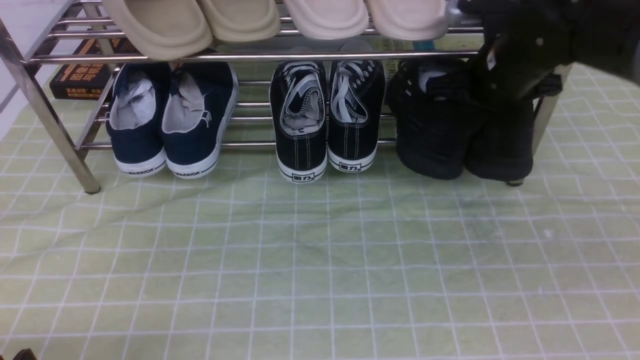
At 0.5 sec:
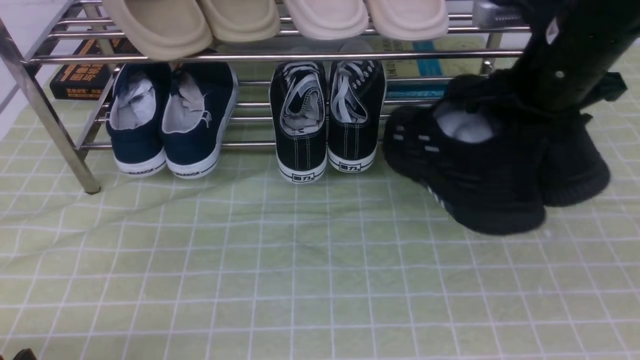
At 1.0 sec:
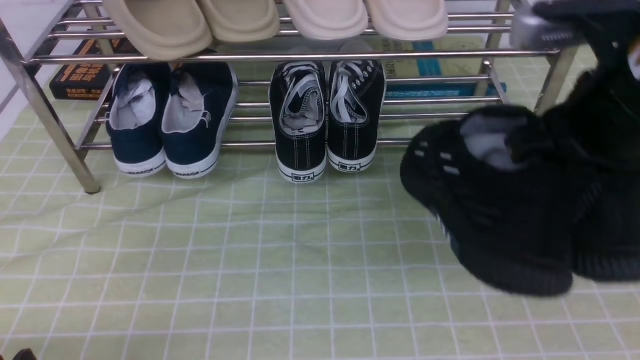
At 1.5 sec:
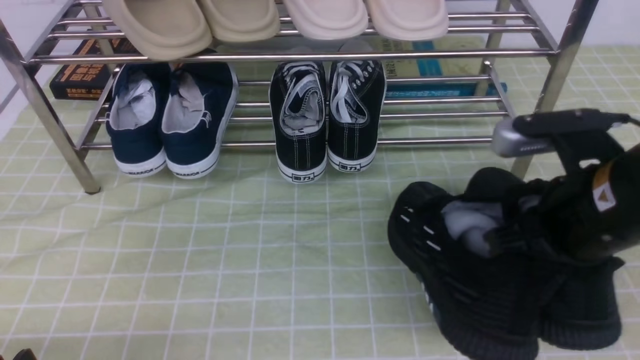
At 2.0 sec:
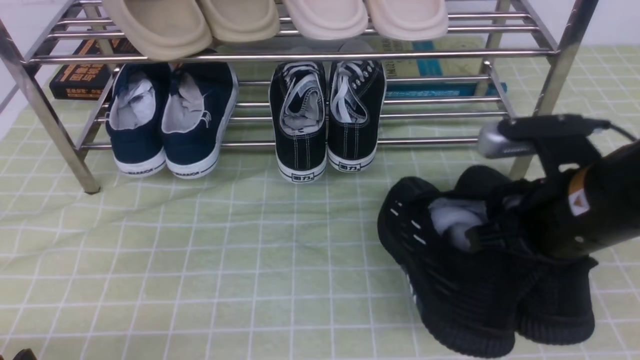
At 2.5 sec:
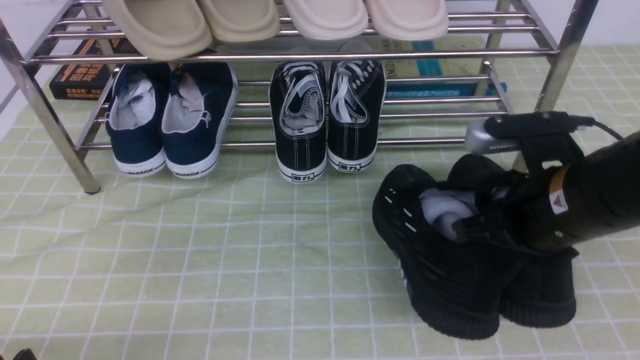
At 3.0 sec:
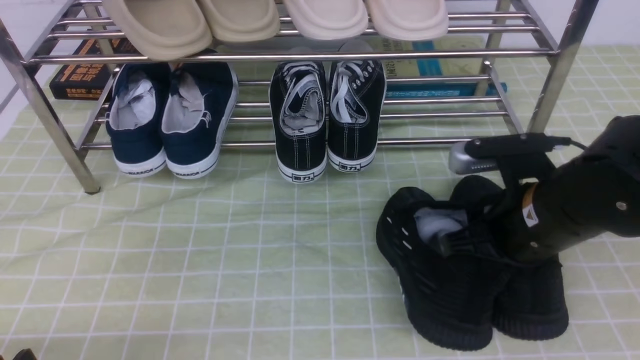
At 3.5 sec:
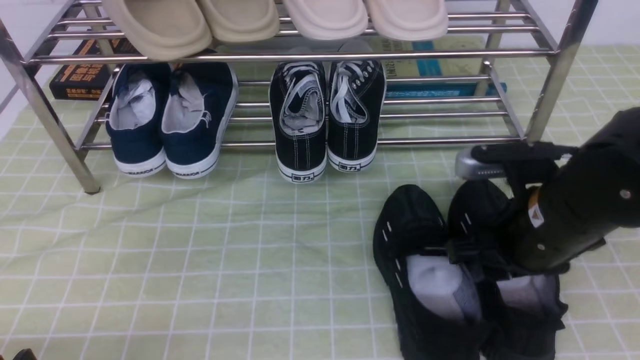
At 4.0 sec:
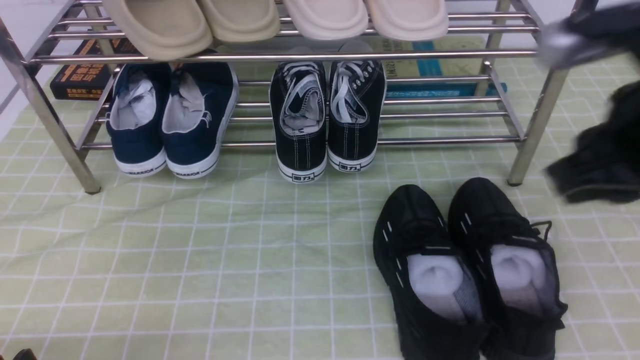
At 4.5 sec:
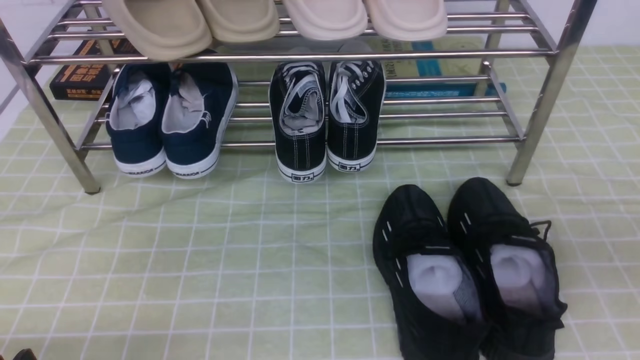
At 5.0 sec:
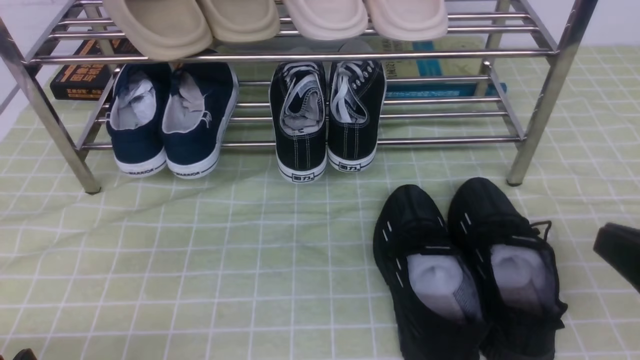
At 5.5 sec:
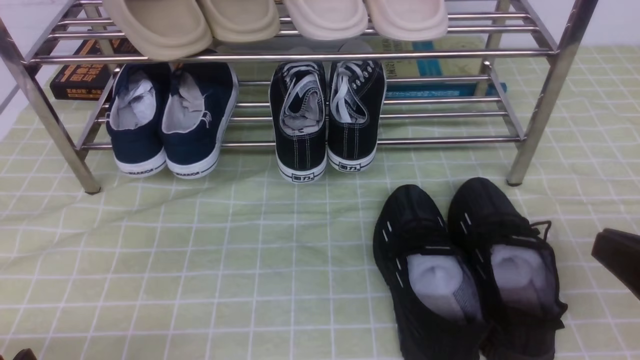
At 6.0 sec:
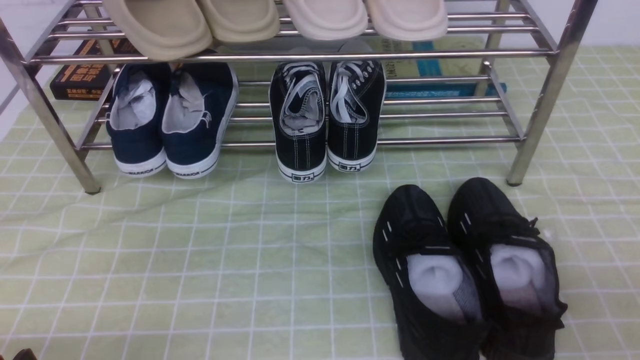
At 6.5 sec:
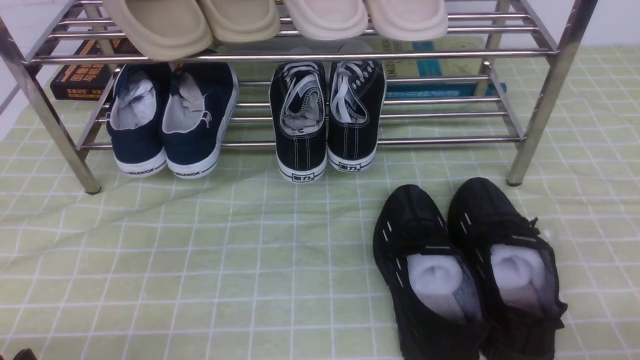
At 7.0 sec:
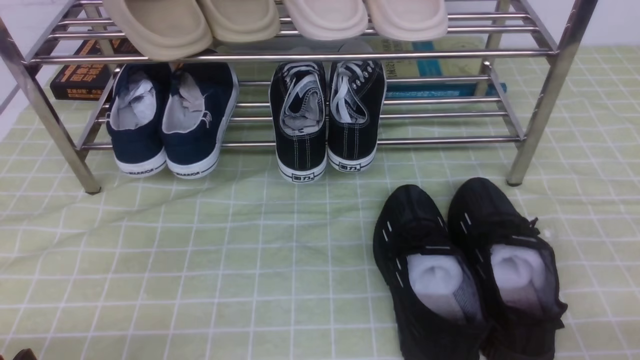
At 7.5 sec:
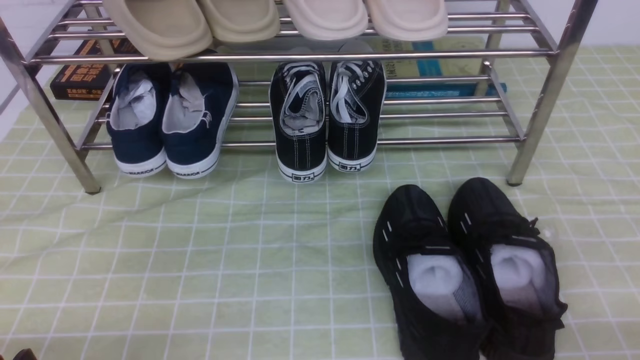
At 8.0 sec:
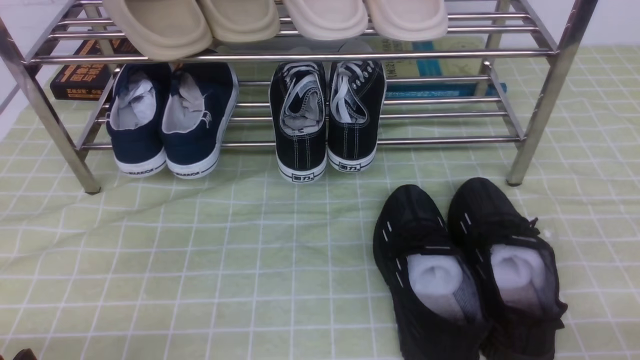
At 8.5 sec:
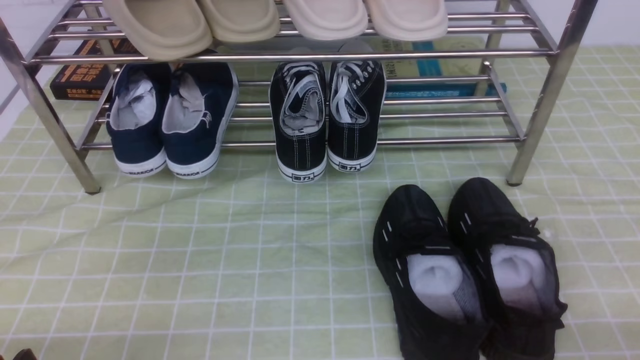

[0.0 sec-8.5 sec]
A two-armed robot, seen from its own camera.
Step, 0.0 sec to 3.5 sec: use the right arm to take out the clamped shoe from the shoe rack and put it down.
0.0 sec to 2.0 sec: The right gripper travels backward by approximately 15 cm.
2.0 sec to 4.0 sec: The right gripper moves upward, roughly 10 cm, and opens, then closes again.
4.0 sec to 6.5 sec: The right gripper is displaced downward, backward and to the right by some 25 cm.
6.5 sec to 8.5 sec: The two grippers keep their place.

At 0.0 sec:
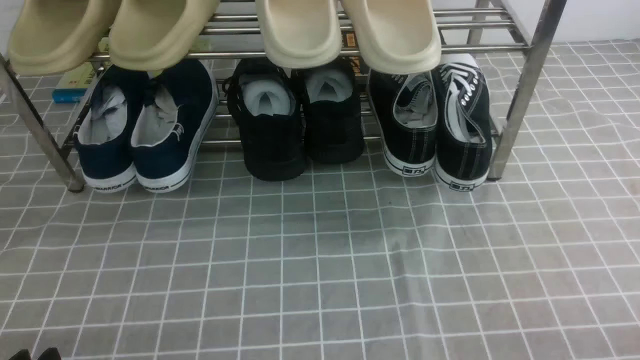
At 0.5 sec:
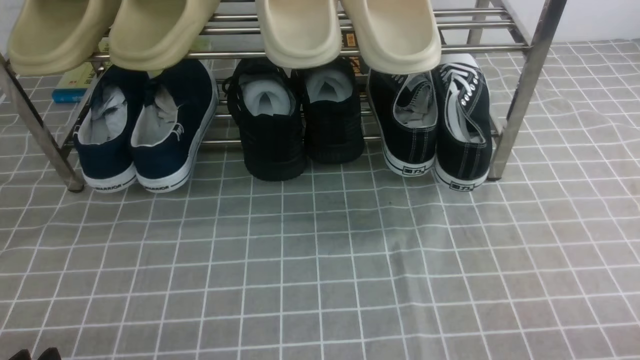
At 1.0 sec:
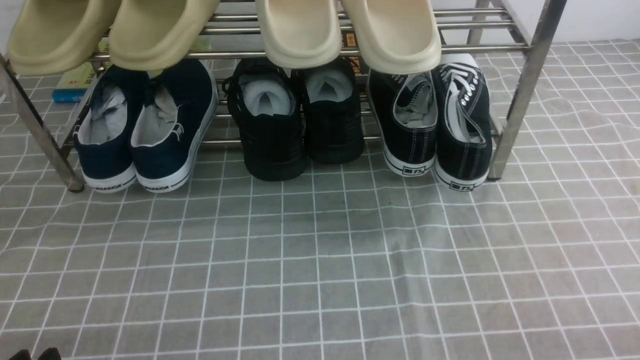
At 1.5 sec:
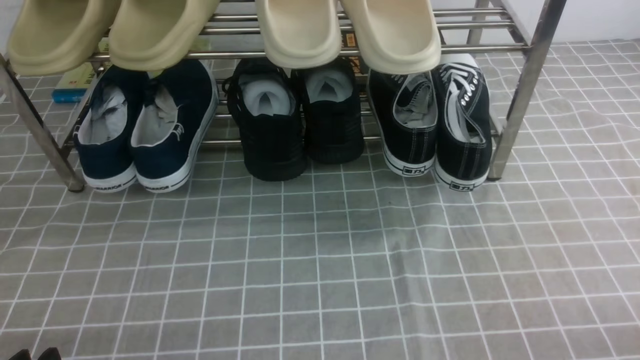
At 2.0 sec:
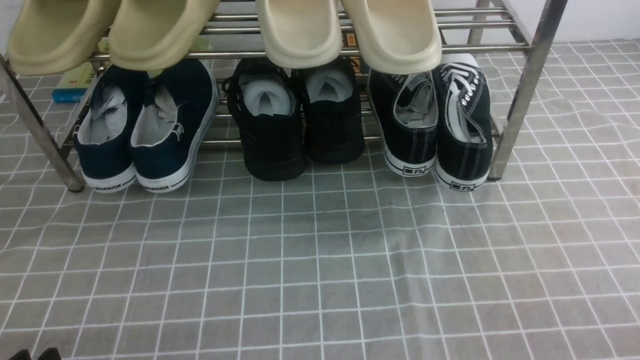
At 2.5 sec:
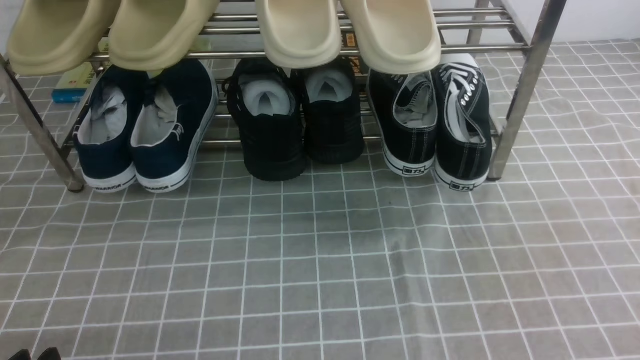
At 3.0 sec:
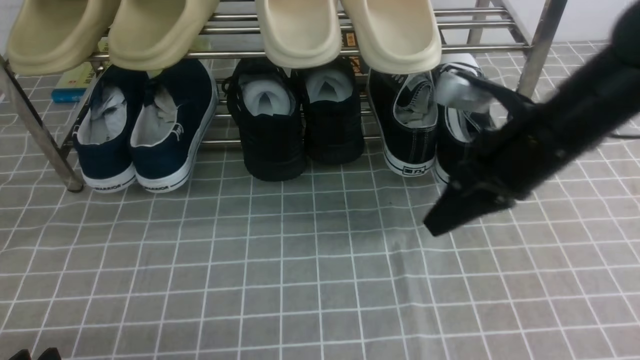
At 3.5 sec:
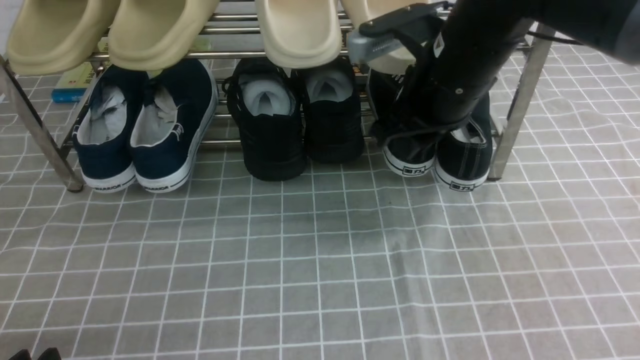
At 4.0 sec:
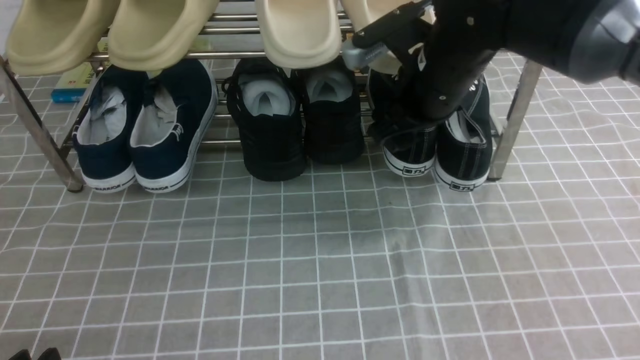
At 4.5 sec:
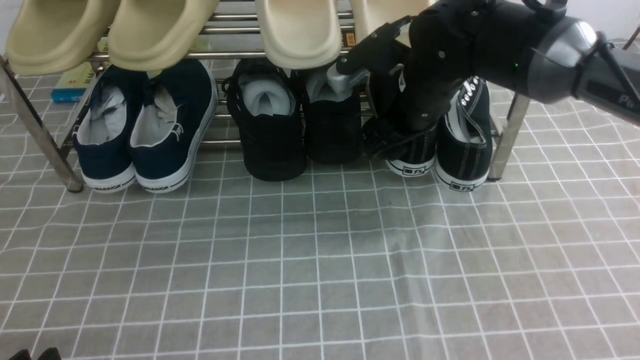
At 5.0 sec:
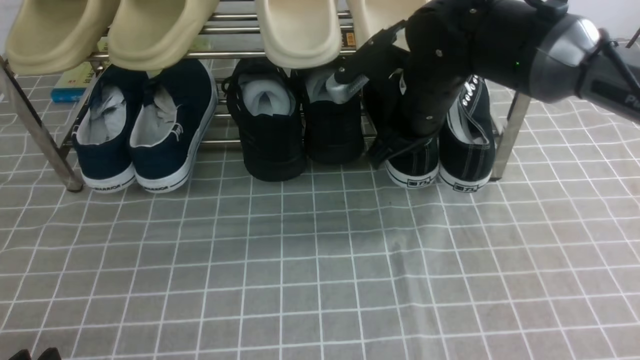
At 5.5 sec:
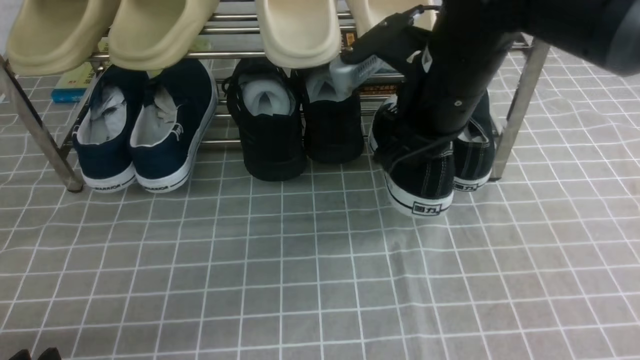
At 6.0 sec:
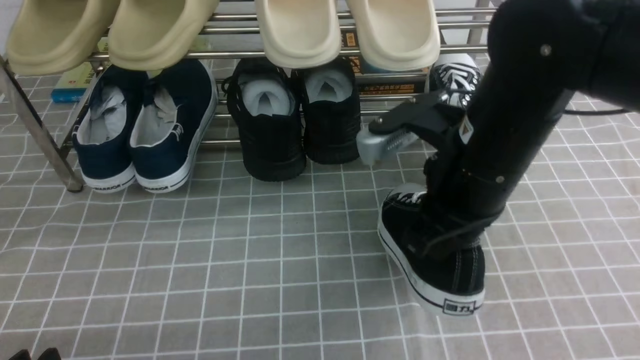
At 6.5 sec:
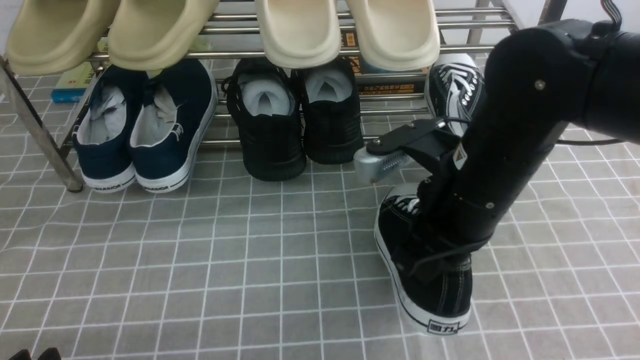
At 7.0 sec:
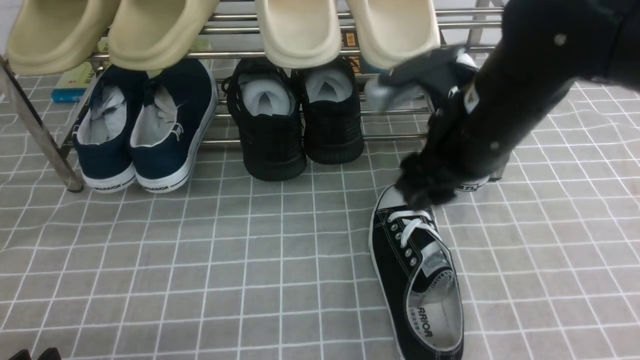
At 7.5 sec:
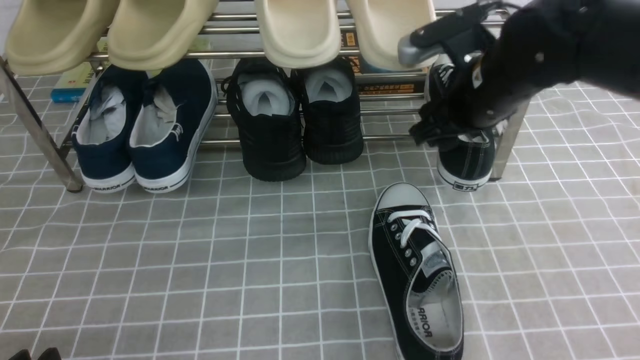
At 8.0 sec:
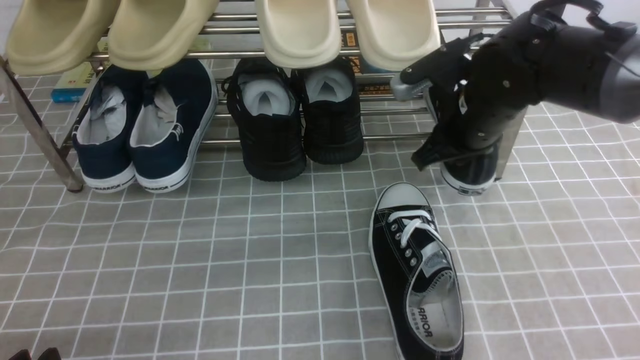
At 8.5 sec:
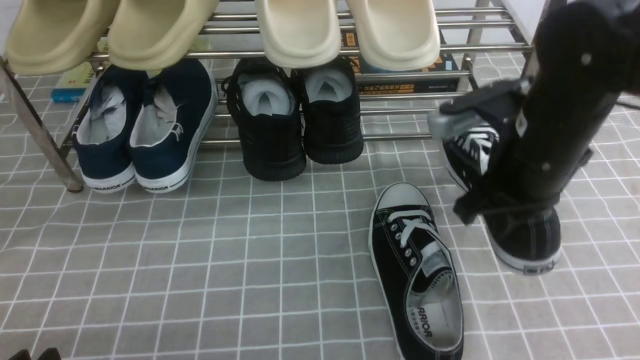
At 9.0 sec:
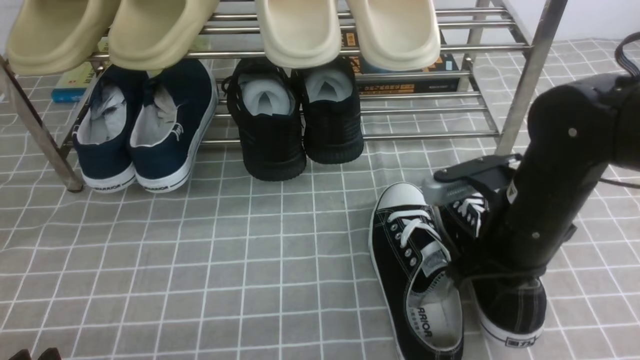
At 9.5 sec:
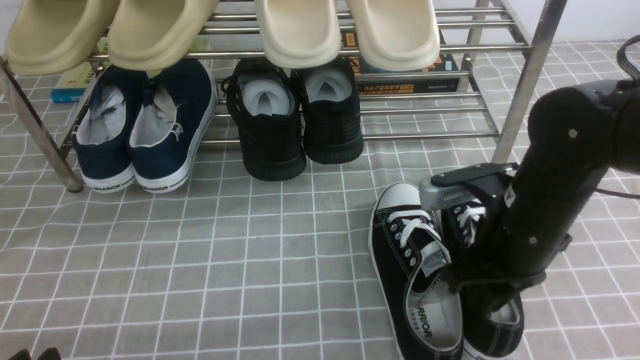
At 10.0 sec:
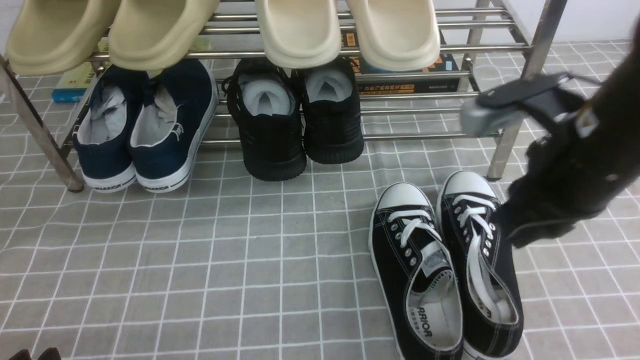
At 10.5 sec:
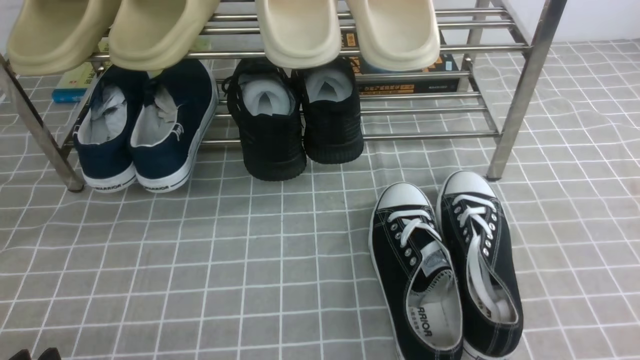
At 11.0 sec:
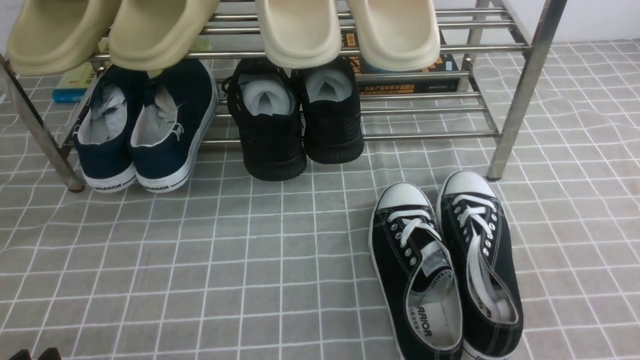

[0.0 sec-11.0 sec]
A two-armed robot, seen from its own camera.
Step, 0.0 sec to 4.5 sec: use the right arm to clamp a shoe on the right side of the shoe rack.
Step, 5.0 sec to 6.5 sec: use the right arm to take out the clamped shoe from the shoe rack and put it down.
Step, 7.0 sec to 8.0 sec: use the right arm to clamp a shoe on the right side of the shoe rack.
Step, 8.5 sec to 9.5 sec: use the right arm to take out the clamped shoe from the shoe rack and put it down.
2.0 sec to 3.5 sec: The right gripper goes about 35 cm forward and to the left, and closes and opens again.
3.5 sec to 5.5 sec: The right gripper closes.
5.5 sec to 7.5 sec: The right gripper heads to the right and forward, covering some 10 cm, and opens up.
7.5 sec to 9.0 sec: The right gripper is displaced backward and downward by some 10 cm, and closes up.
9.0 sec to 11.0 sec: The right gripper heads backward and to the right, covering approximately 25 cm.
